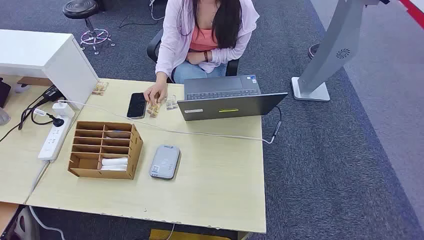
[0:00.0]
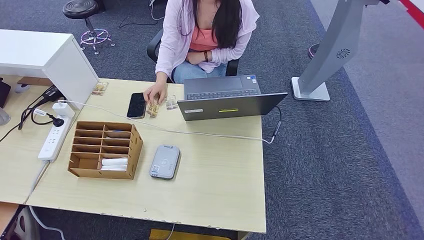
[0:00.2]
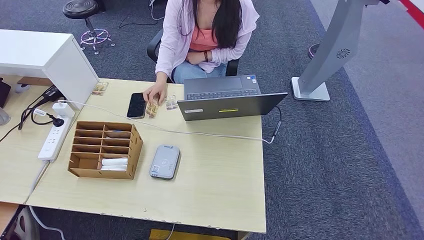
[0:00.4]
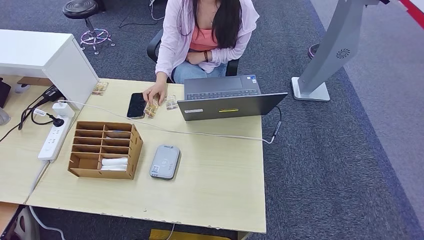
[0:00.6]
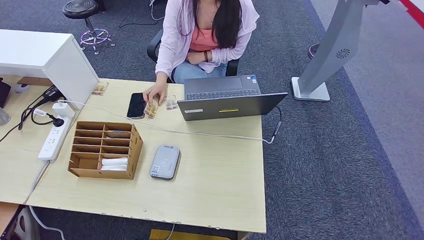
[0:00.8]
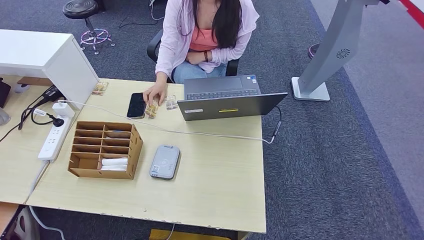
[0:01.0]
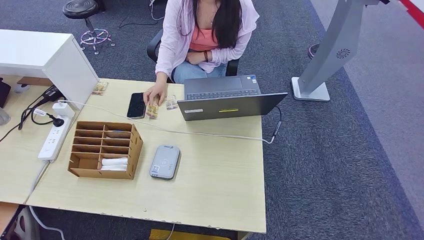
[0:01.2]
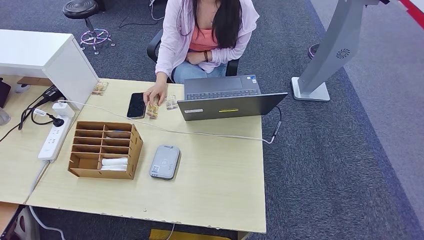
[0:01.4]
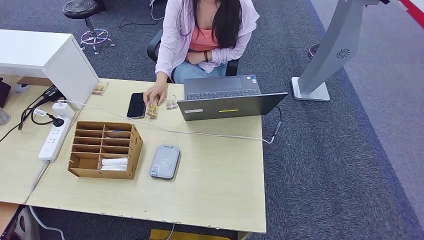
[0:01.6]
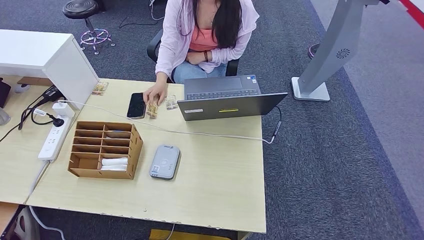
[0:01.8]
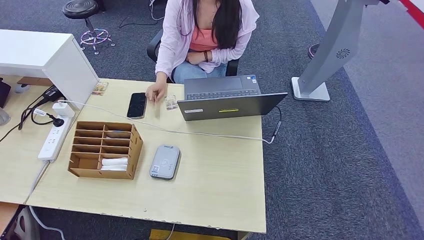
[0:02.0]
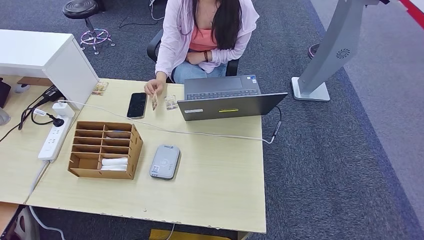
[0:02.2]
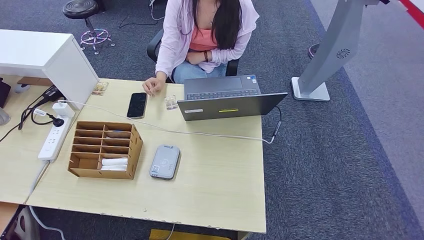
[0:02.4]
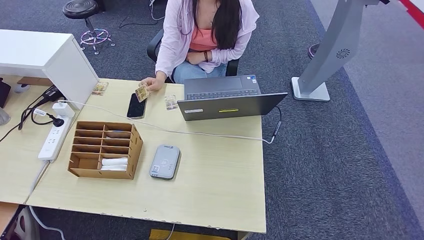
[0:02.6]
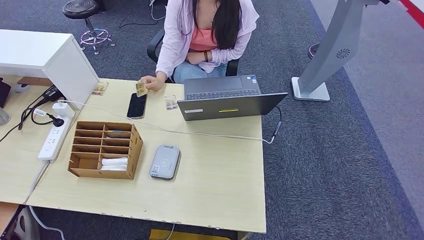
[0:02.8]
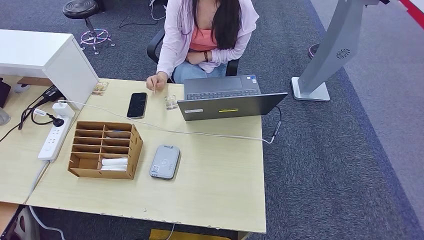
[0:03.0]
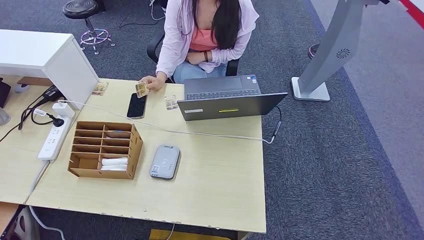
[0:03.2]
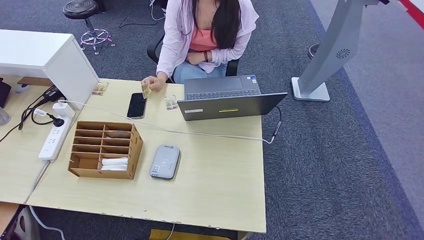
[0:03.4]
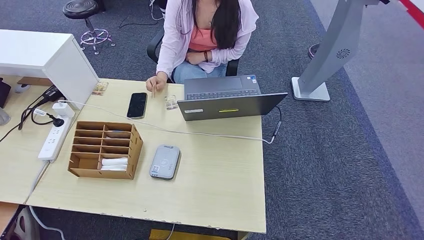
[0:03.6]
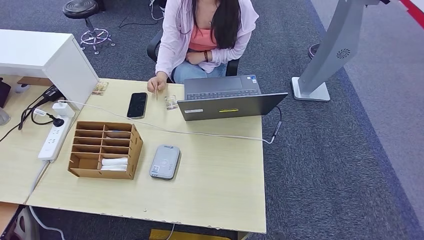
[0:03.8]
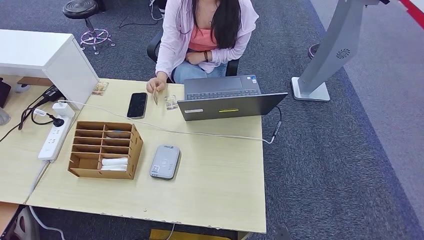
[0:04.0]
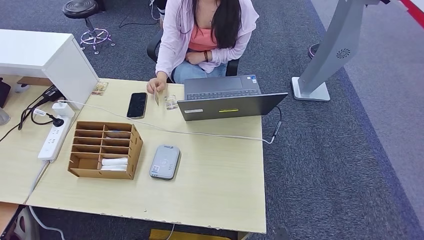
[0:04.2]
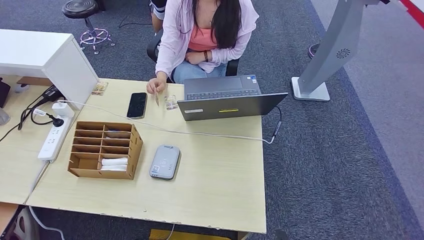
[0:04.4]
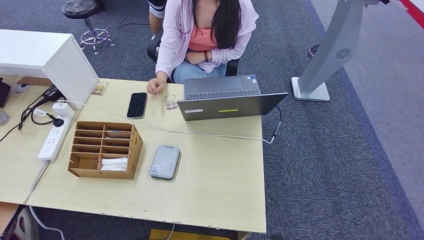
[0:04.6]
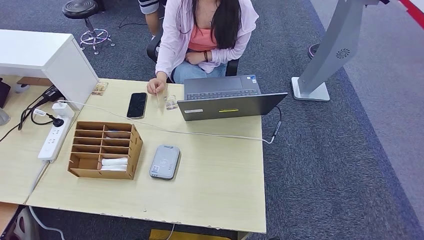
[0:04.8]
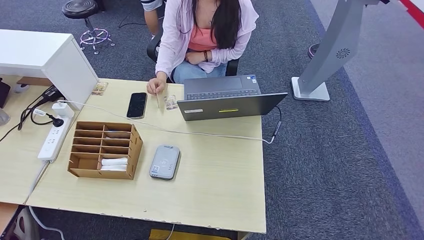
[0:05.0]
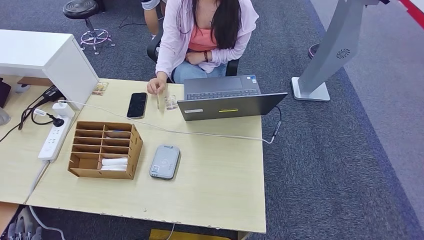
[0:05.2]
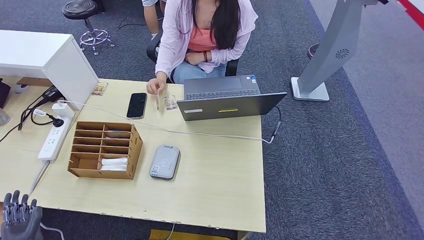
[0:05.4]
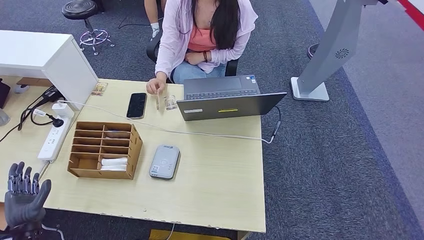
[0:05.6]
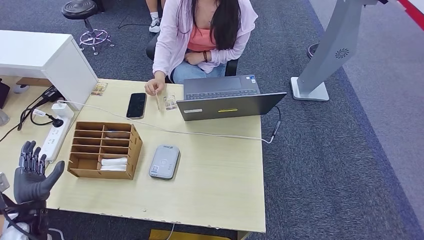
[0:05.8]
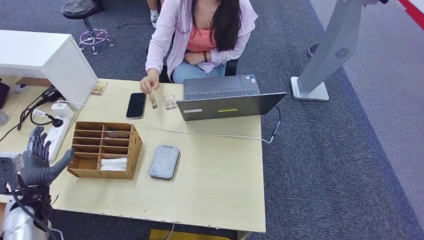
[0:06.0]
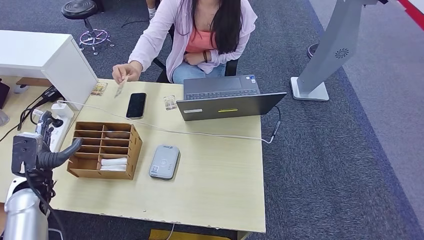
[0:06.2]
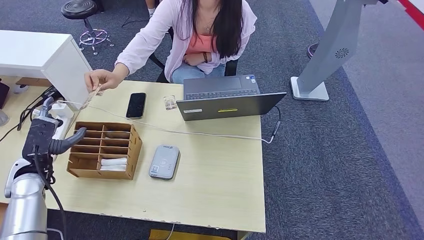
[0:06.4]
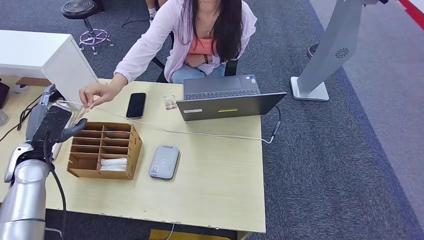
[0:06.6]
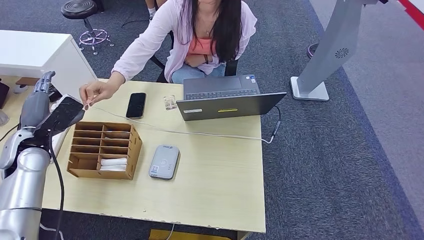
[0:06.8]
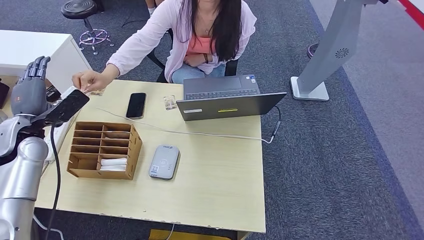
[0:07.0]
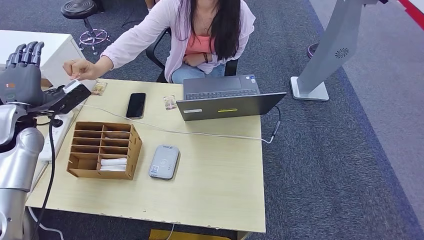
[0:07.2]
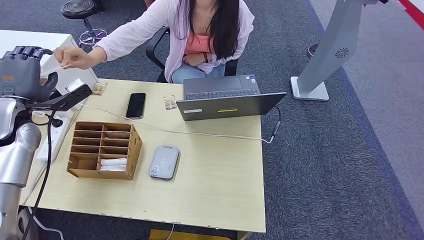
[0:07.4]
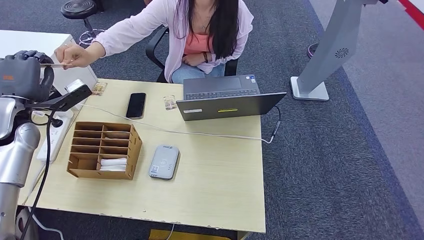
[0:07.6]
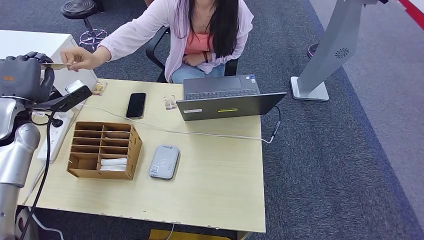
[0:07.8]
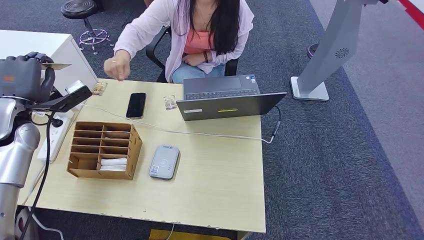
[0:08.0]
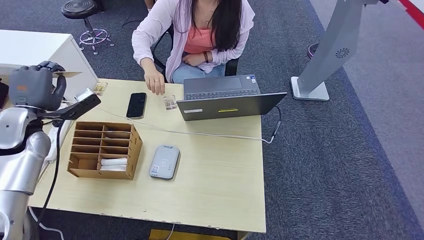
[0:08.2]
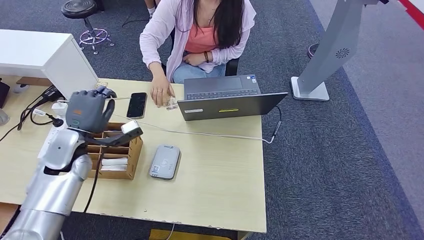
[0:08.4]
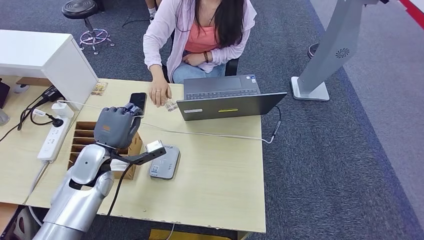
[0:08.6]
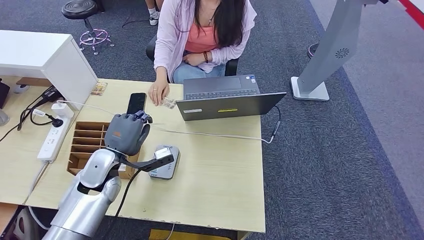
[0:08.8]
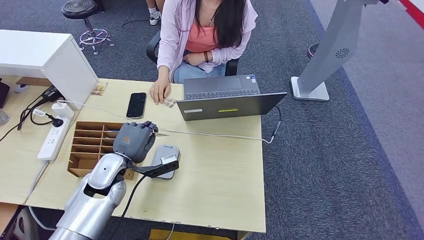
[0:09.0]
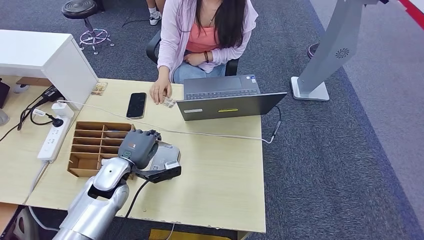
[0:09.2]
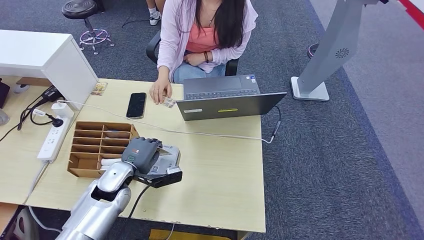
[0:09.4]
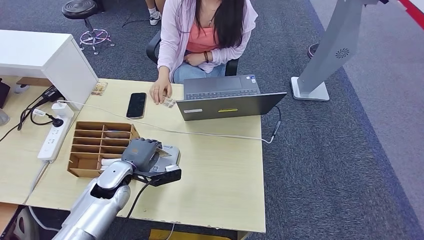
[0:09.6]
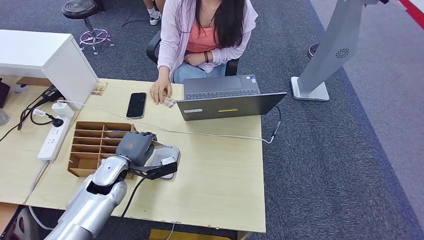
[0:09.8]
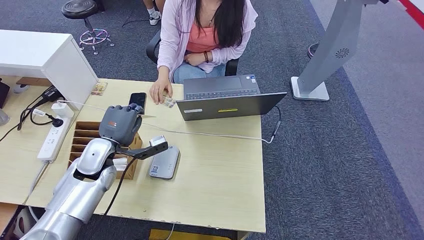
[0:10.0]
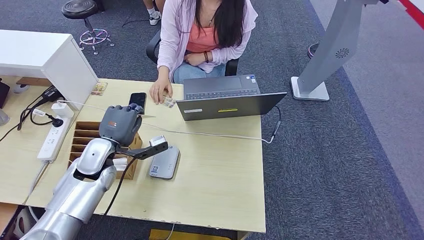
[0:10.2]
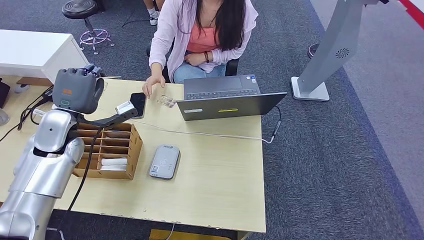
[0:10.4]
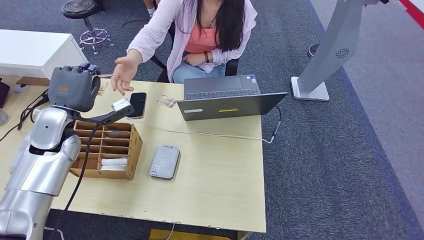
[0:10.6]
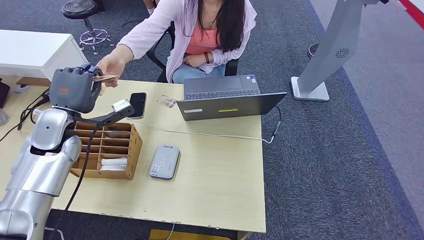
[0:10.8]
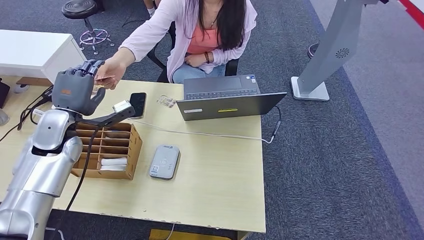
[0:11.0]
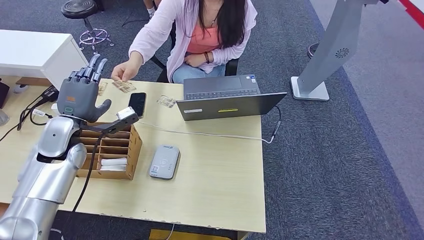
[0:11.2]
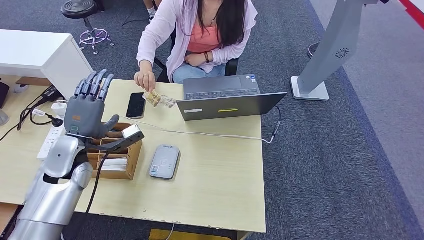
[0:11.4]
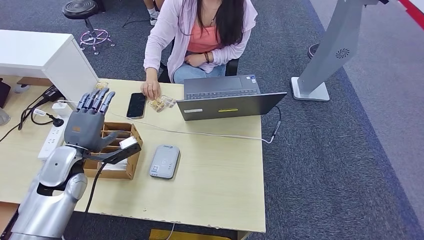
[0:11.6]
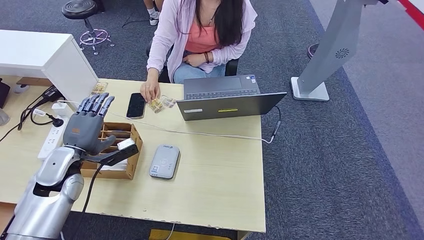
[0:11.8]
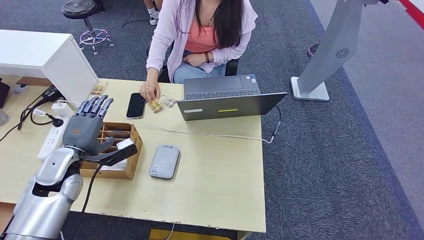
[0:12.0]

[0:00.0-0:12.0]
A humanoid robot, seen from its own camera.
Step, 0:00.0 to 0:07.2: Take the ID card from the person's hand.
Step, 0:07.4 to 0:10.2: Place the ID card on the card reader.
0:01.6 to 0:03.0: Both hands stay put.
0:03.0 to 0:04.4: The right hand shifts some 5 cm forward. The left hand changes place by some 5 cm.
0:04.4 to 0:06.0: The left hand moves forward and upward, roughly 35 cm.
0:06.0 to 0:07.6: The left hand moves upward and forward, approximately 20 cm.
0:09.0 to 0:10.4: The left hand is displaced upward, forward and to the left by some 10 cm.
0:10.4 to 0:12.0: The left hand heads downward and backward, covering about 5 cm.

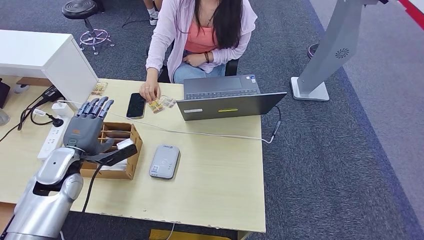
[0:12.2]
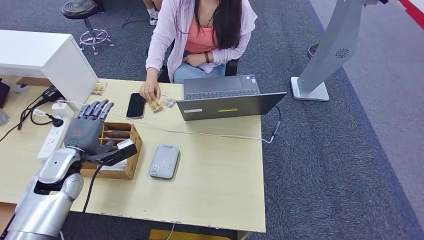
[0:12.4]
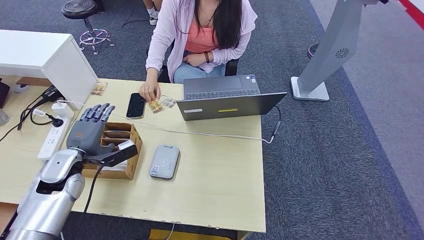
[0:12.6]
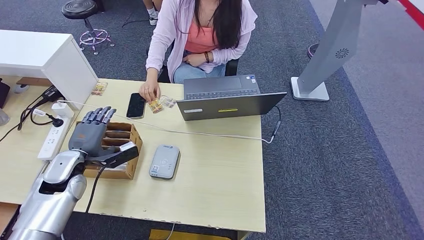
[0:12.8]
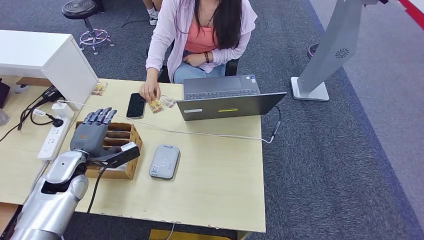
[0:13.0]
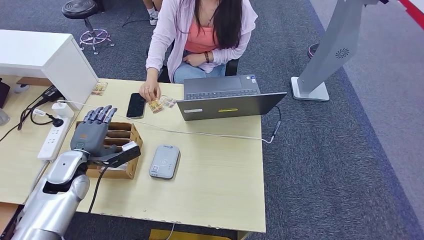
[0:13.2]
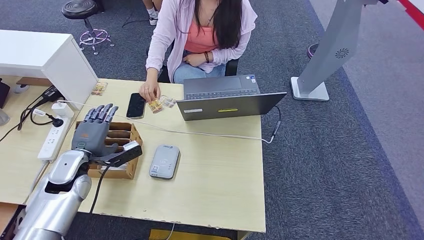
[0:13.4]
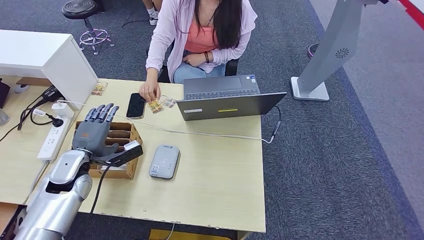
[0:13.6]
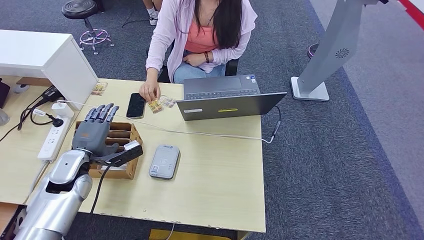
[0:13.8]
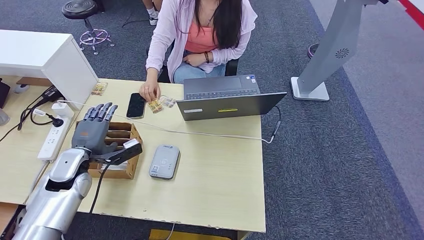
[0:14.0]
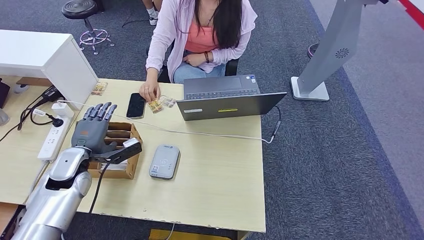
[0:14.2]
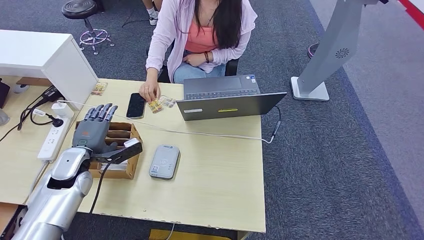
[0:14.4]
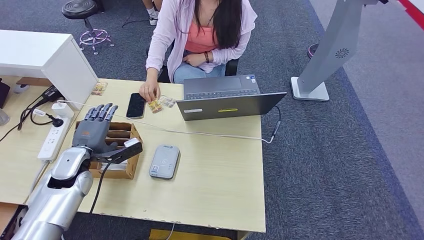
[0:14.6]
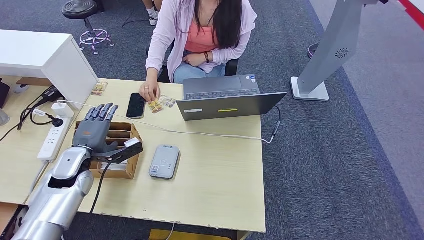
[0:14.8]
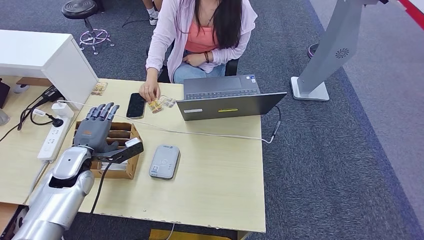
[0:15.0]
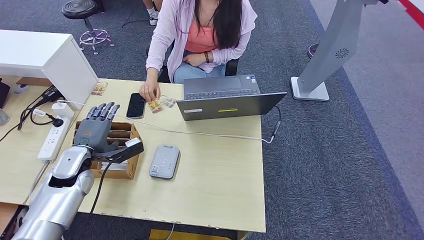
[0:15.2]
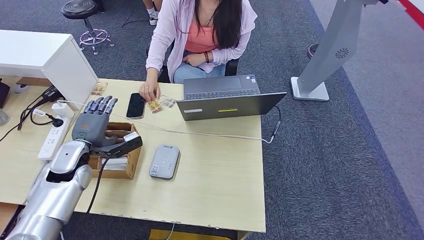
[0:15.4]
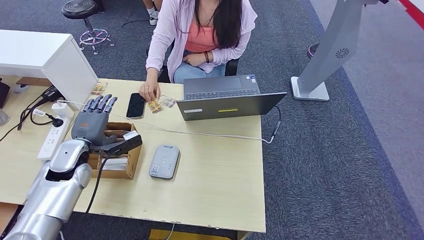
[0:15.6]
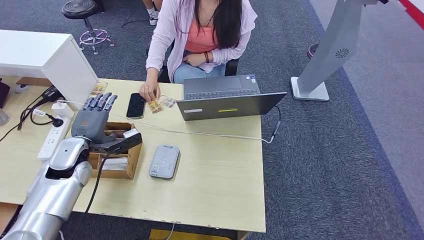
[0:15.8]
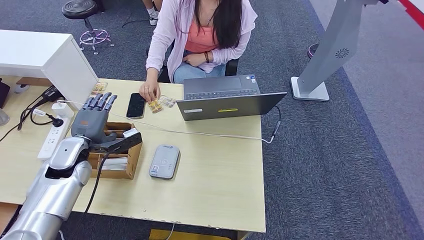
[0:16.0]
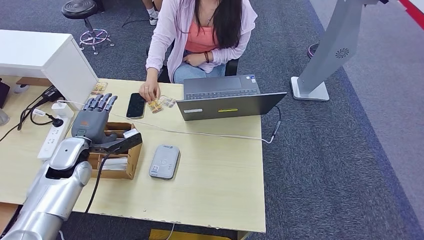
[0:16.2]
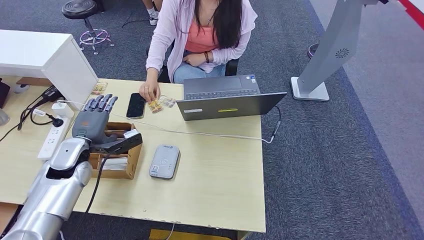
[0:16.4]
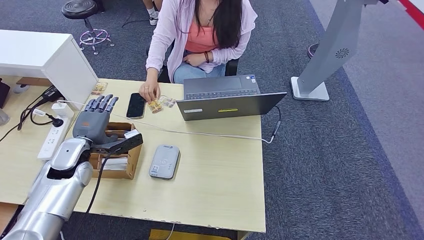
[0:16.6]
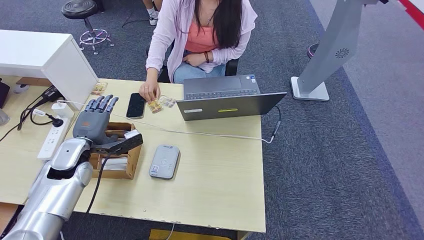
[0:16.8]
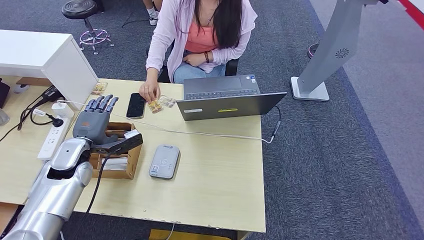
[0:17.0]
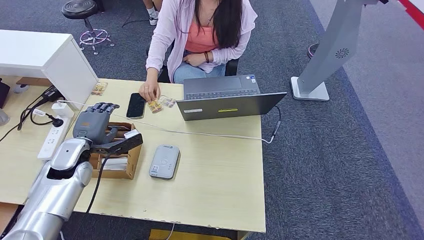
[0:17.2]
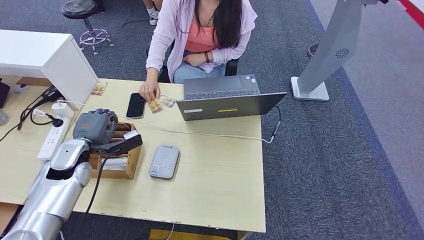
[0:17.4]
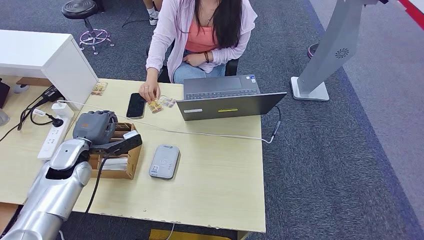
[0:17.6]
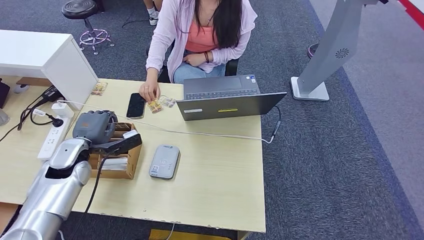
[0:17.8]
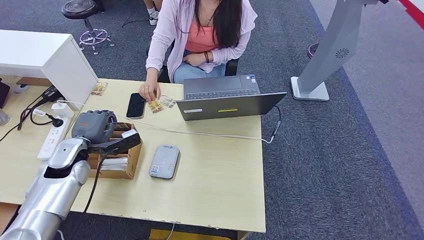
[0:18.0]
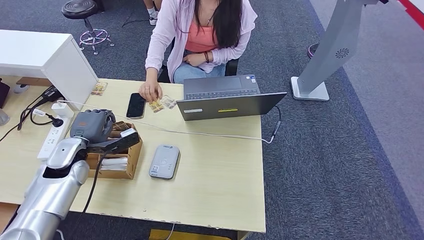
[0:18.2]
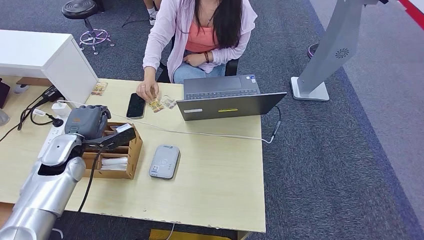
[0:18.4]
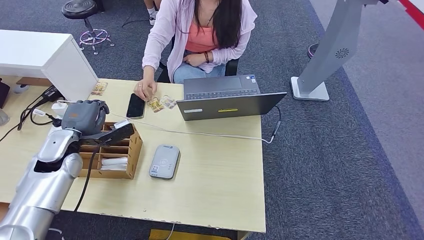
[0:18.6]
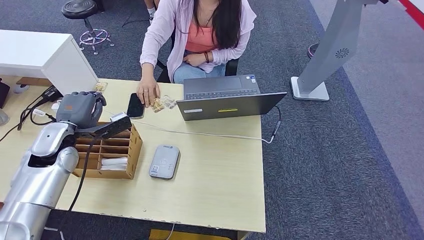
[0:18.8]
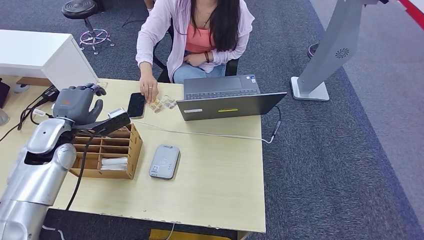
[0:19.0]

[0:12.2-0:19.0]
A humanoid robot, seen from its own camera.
0:12.2 to 0:13.6: The hands move only a little.
0:13.6 to 0:15.0: The two hands keep their place.
0:15.0 to 0:16.2: The hands make only small movements.
0:16.2 to 0:17.6: Both hands stay about where they are.
0:17.6 to 0:19.0: The left hand goes roughly 5 cm upward.
